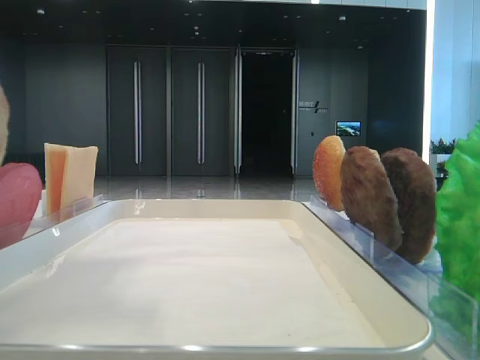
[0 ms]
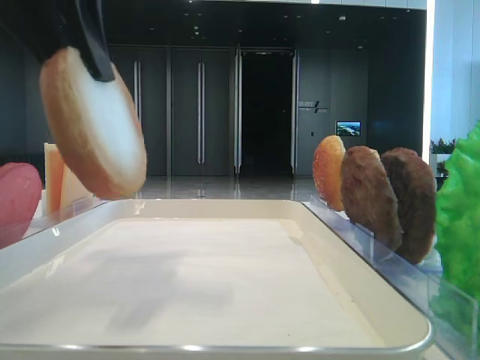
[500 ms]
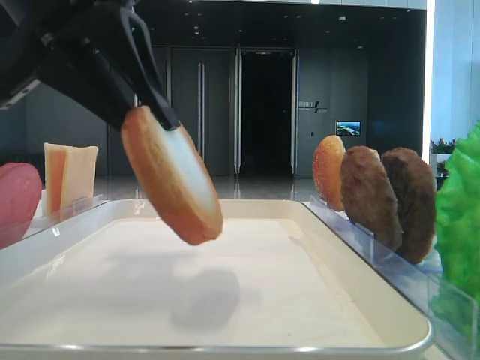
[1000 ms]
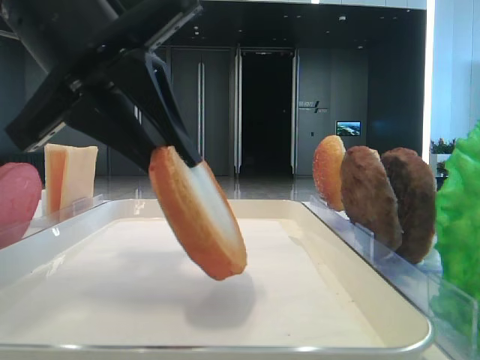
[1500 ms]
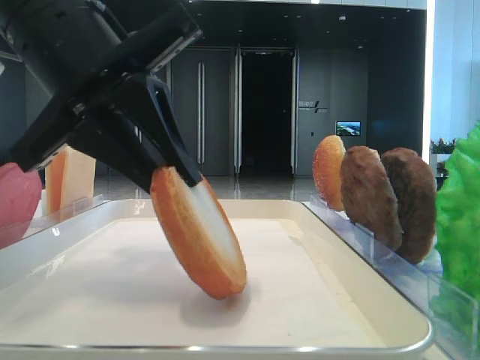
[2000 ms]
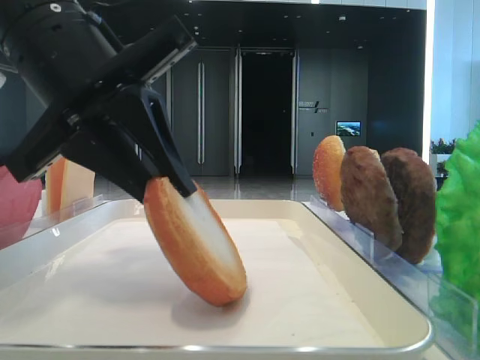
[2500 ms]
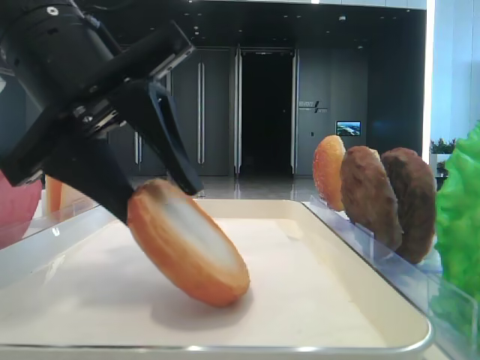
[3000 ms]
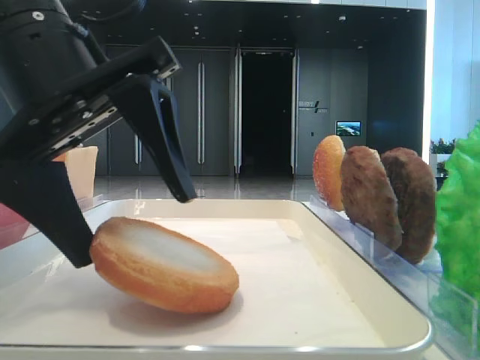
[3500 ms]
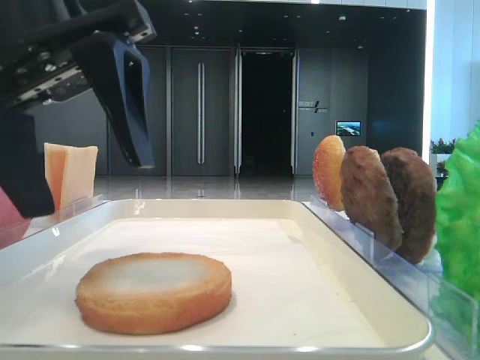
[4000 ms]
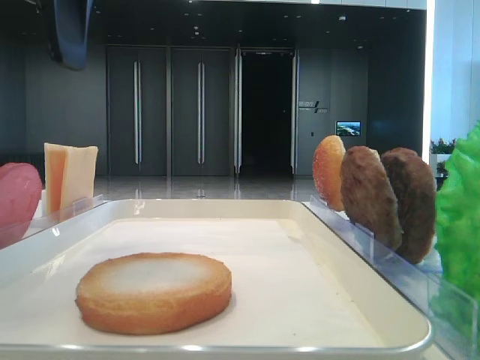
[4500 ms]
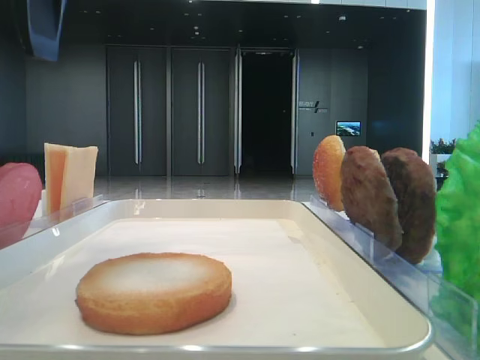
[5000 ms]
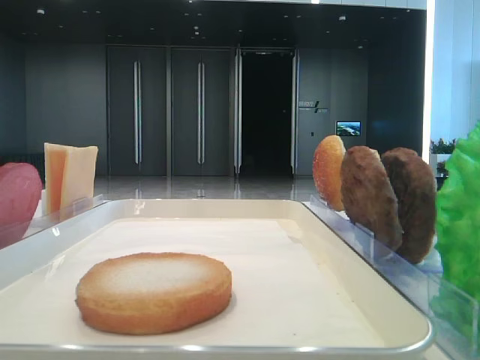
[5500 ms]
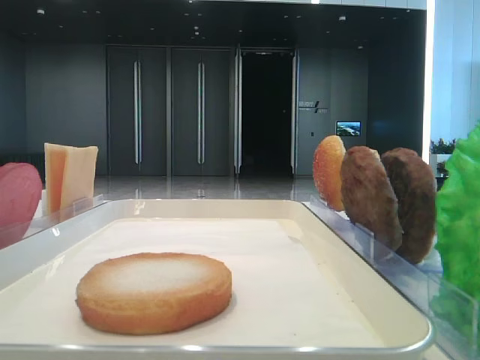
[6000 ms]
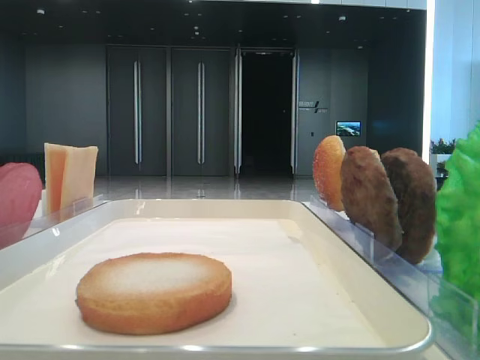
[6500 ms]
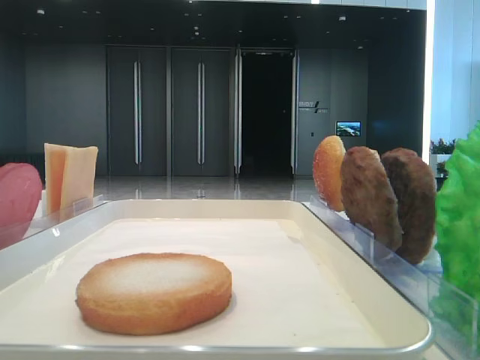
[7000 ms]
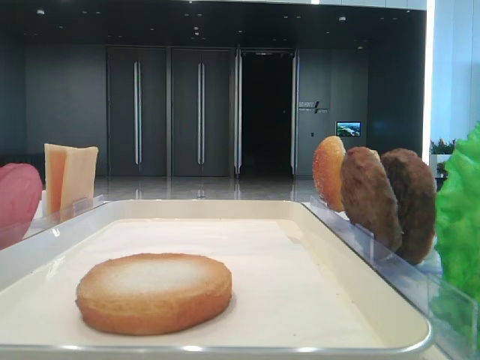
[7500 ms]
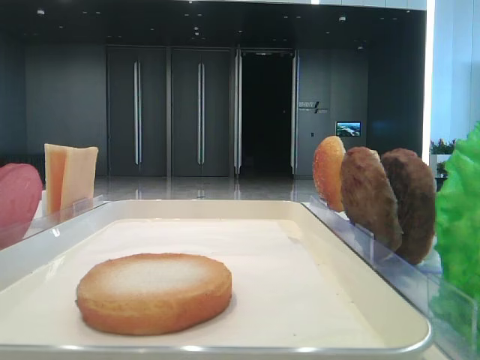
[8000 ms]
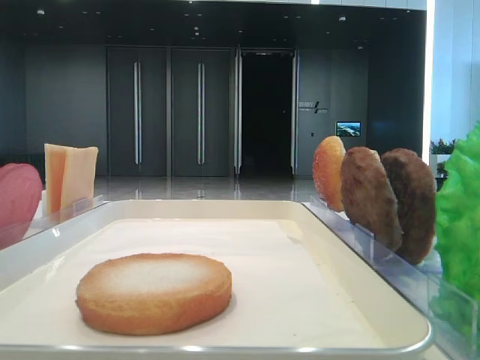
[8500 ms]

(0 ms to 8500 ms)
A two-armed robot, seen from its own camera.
Step, 0 ms - 3500 ms: Place the bread on the tray with the left hand.
0 ms - 2000 ms: The left gripper is displaced downward and to the right by some 10 cm.
2000 ms - 4000 ms: The left gripper opens its fingers.
4000 ms - 6500 ms: The left gripper heads to the left and upward, covering roughly 20 cm.

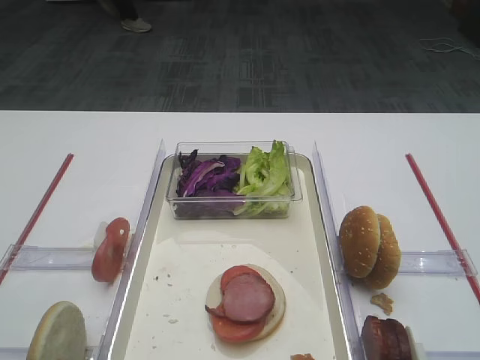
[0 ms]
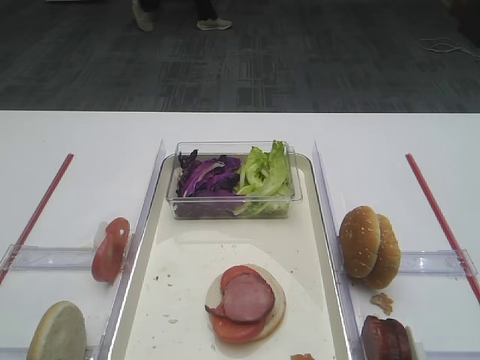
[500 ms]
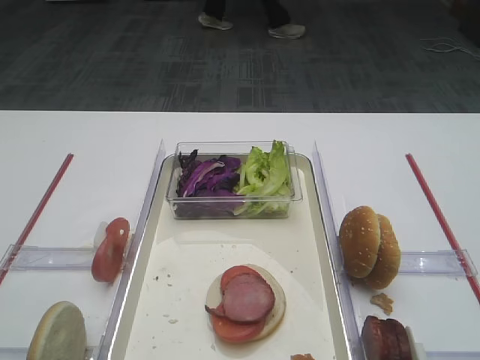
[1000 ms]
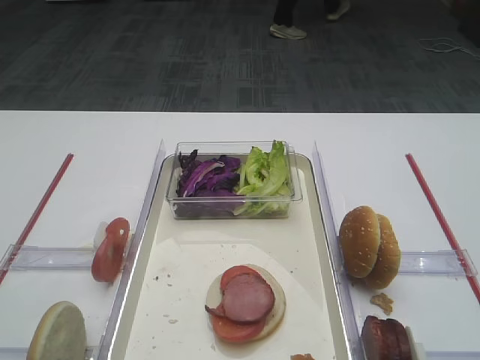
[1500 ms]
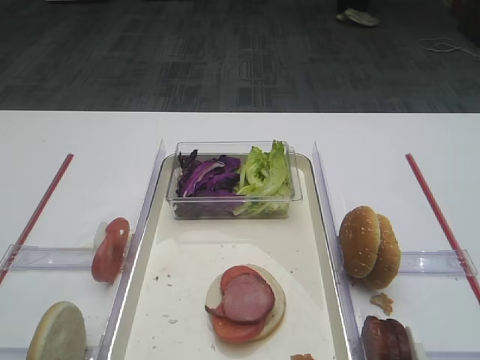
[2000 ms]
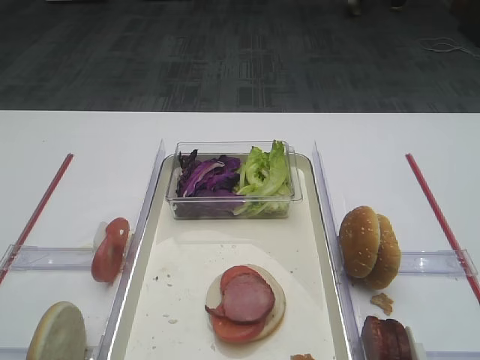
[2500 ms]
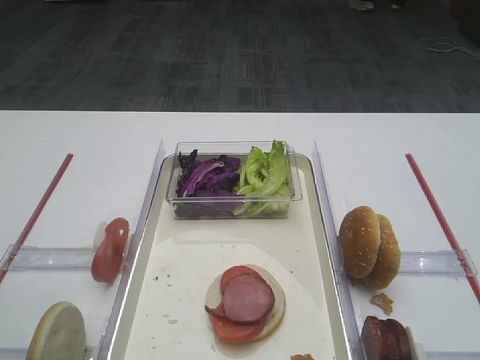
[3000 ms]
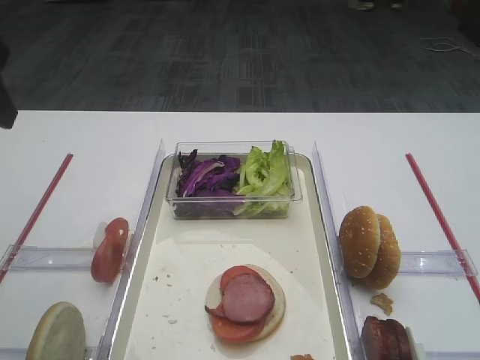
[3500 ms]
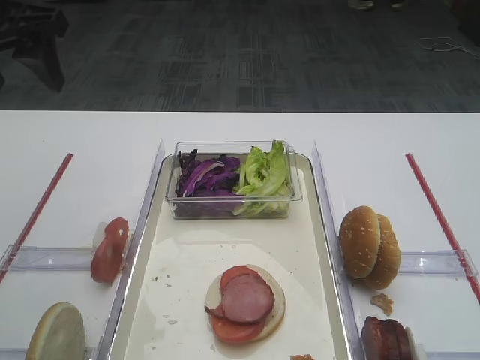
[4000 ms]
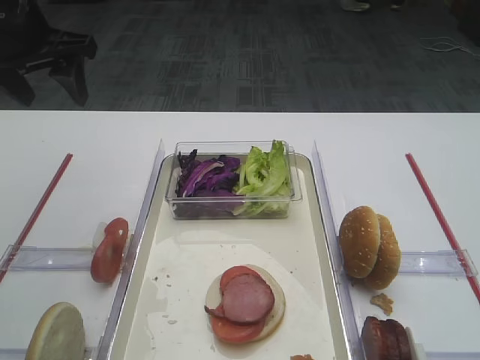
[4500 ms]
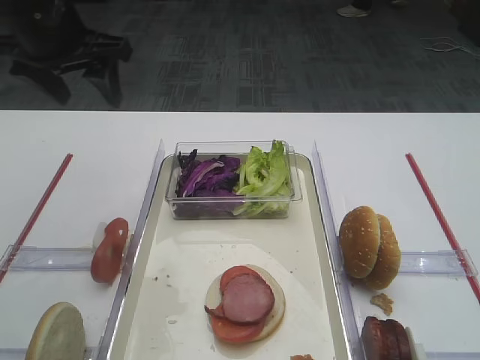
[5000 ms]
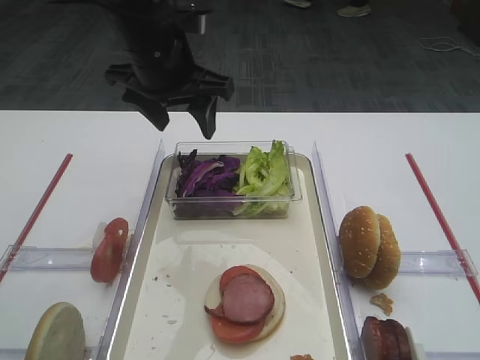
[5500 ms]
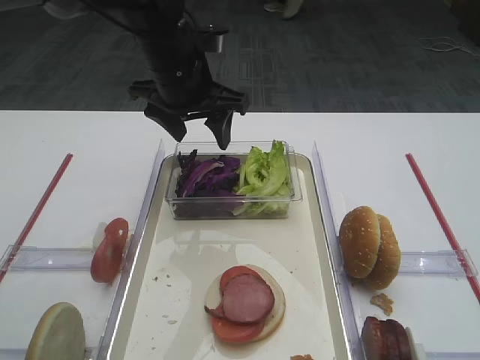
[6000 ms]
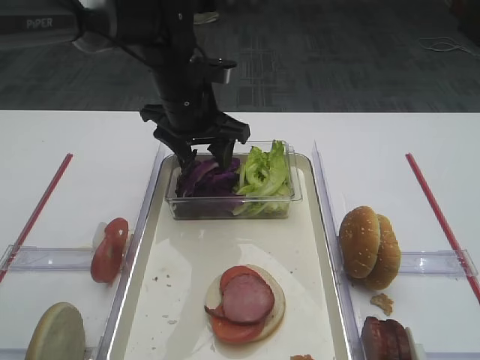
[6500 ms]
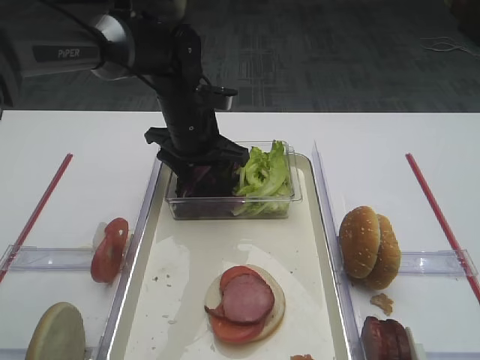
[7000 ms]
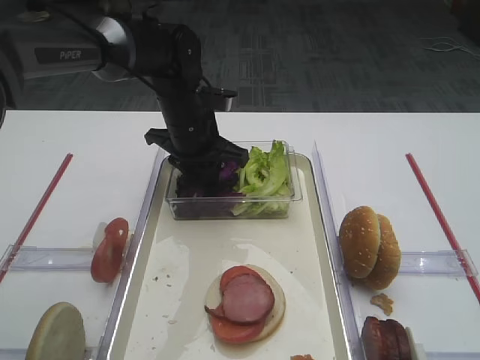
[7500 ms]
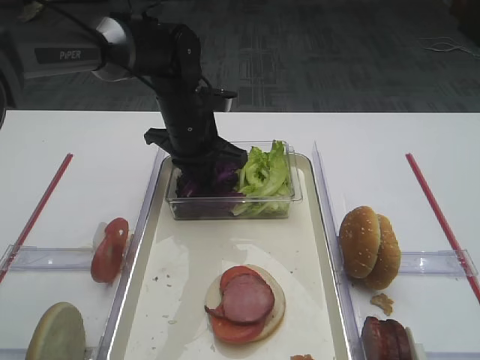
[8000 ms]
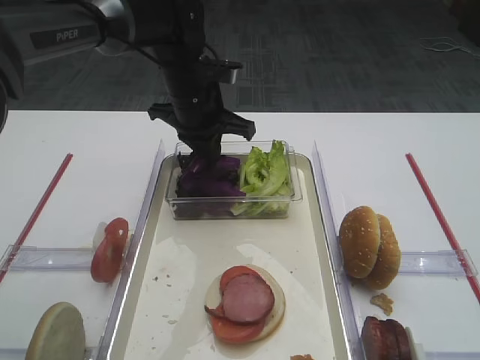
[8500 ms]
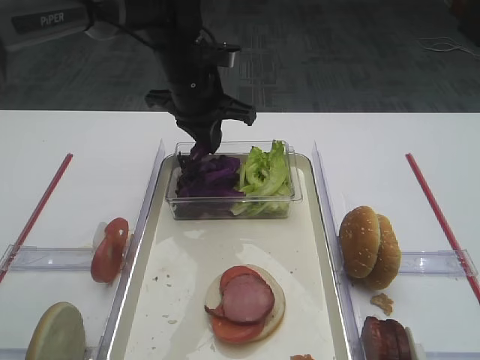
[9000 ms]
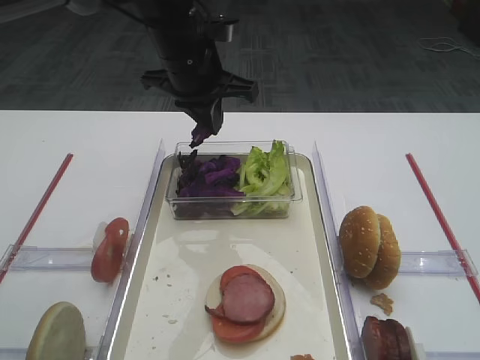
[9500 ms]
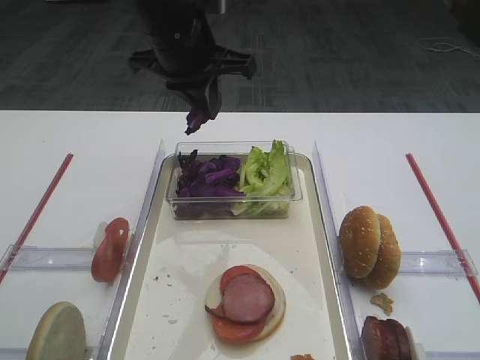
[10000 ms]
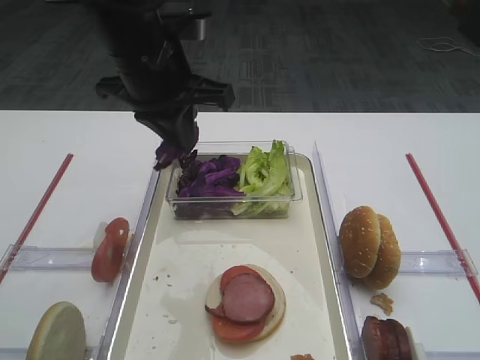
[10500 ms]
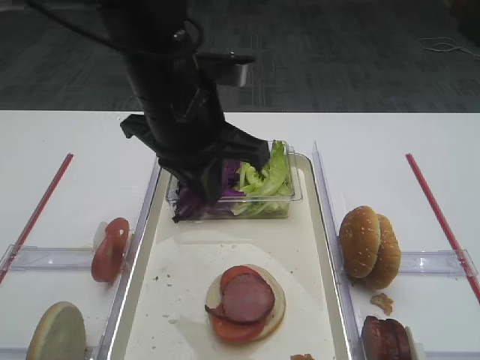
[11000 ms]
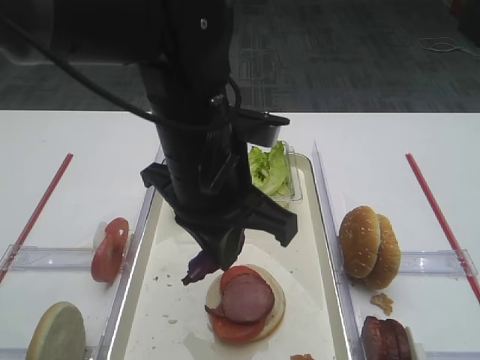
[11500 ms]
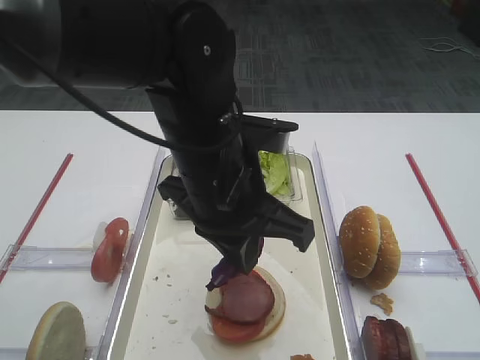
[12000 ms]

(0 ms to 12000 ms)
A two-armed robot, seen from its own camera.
Step, 0 ms - 9000 ms: Pick up the purple cabbage with the left gripper.
2000 ms - 4000 ms: The left gripper shifts roughly 35 cm forward.
4000 ms - 6000 ms: The left gripper moves to the right, downward and forward, approximately 20 cm.
6000 ms - 8000 ms: The left gripper shifts about 10 cm downward, and closes.
8000 ms - 10000 ms: The left gripper shifts about 15 cm upward.
10000 ms - 12000 ms: The left gripper travels backward and downward by approximately 15 cm.

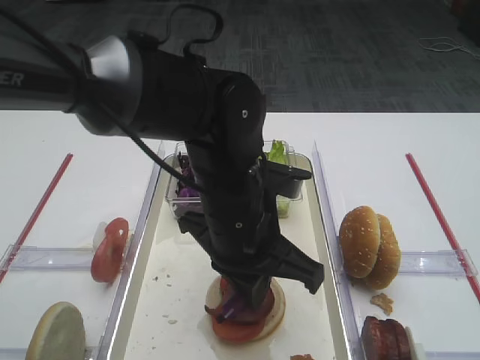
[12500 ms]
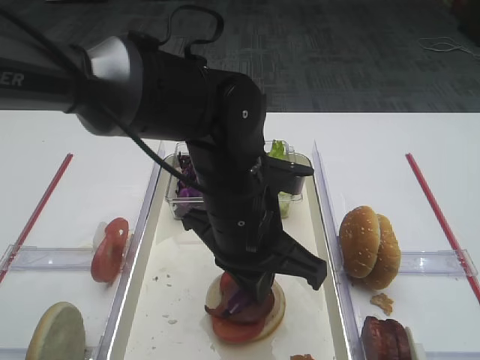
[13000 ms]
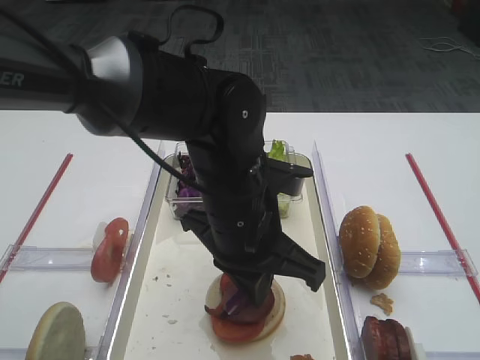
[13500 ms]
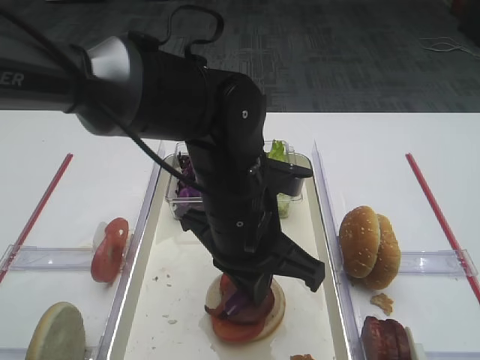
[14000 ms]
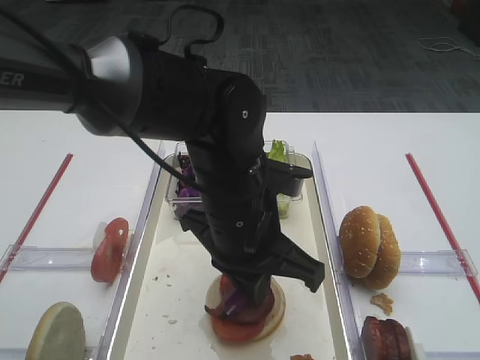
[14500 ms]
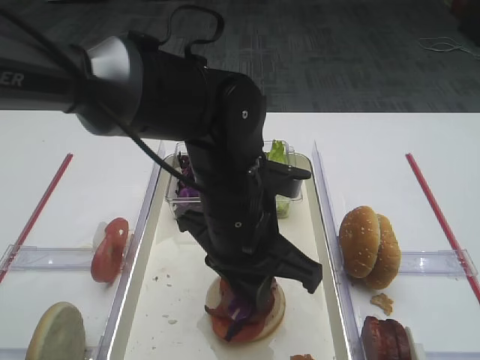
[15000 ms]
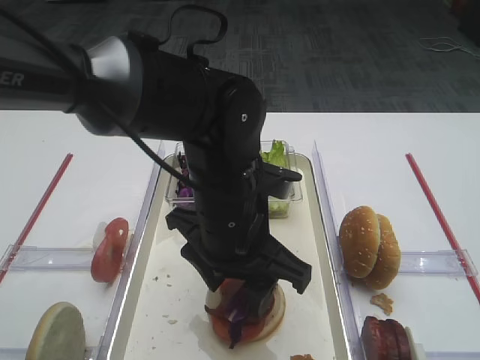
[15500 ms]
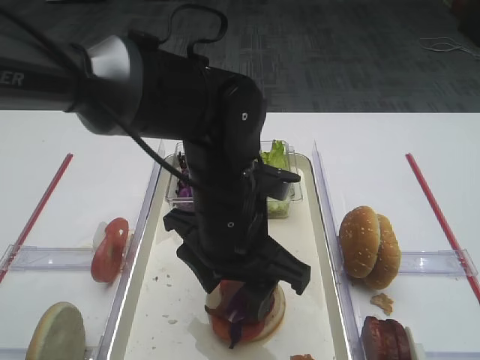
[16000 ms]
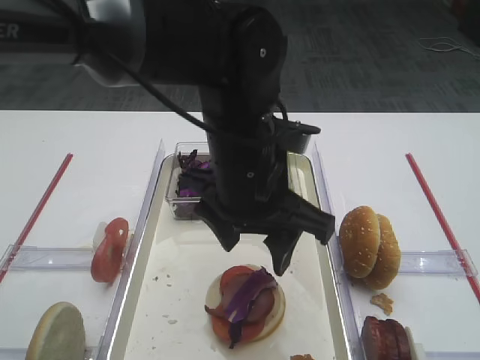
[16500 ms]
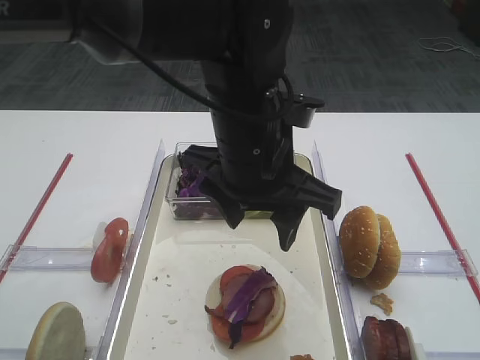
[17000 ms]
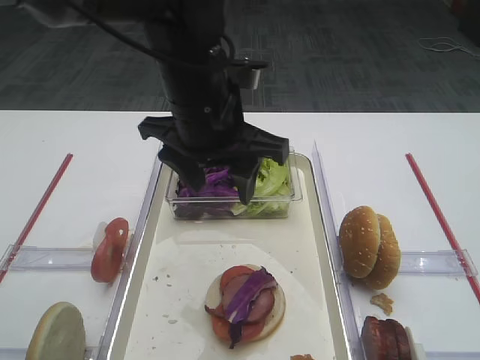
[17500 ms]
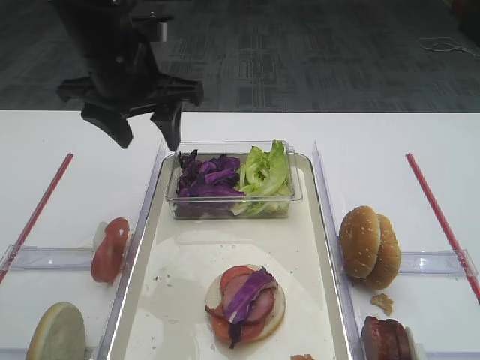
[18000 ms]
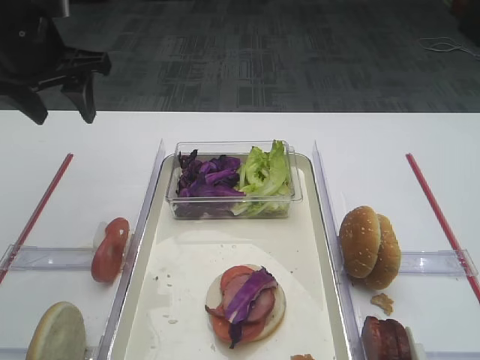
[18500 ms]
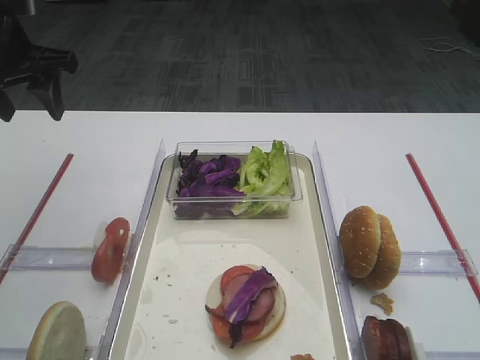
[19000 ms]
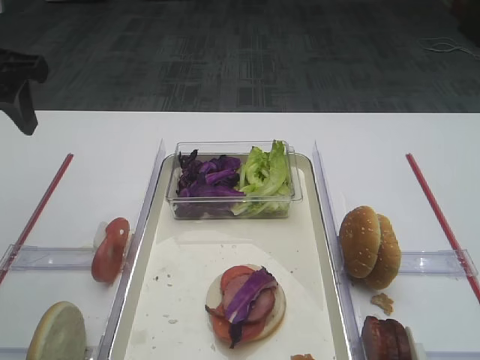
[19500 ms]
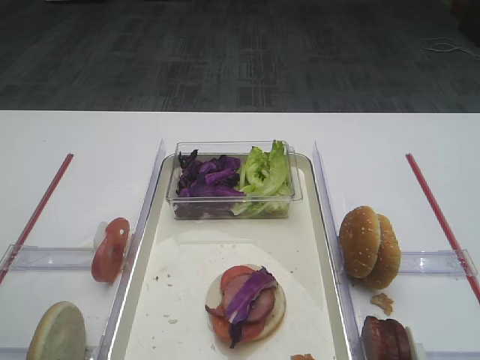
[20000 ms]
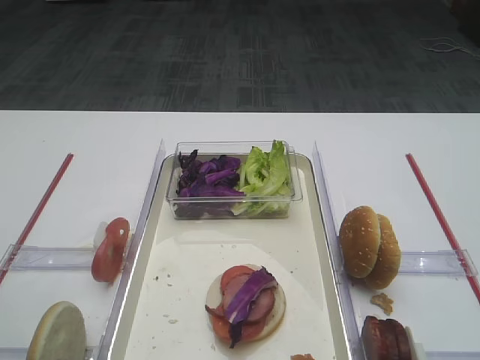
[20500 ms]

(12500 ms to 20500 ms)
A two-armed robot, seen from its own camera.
Step, 12500 ms - 16500 ms: Place the purple cabbage on the cutlet with the left gripper.
12500 ms - 14500 ms: Neither gripper changes place.
14500 ms - 16500 ms: The left gripper opens its fingers.
16500 ms - 18500 ms: The left gripper moves to the left and forward, approximately 25 cm.
18500 ms - 20500 ms: The left gripper travels backward by some 25 cm.
